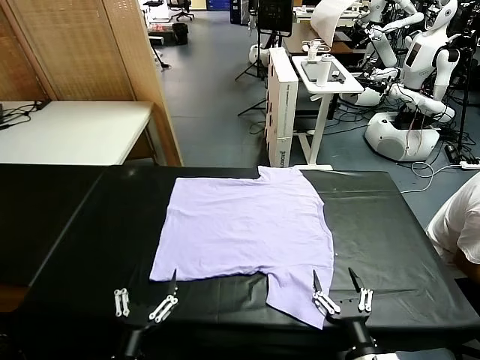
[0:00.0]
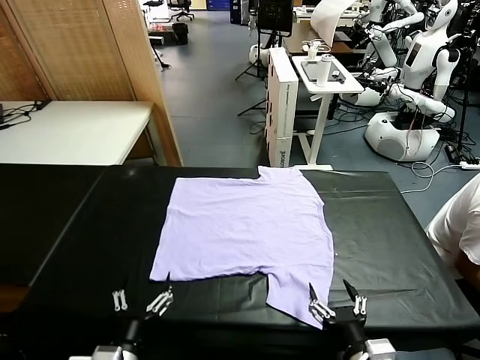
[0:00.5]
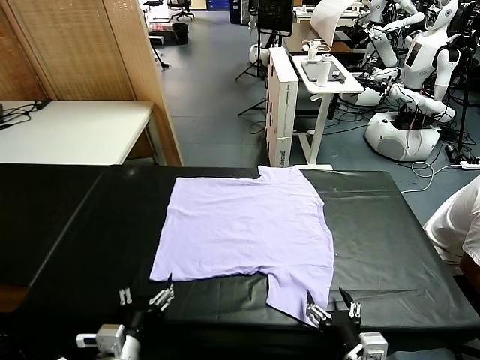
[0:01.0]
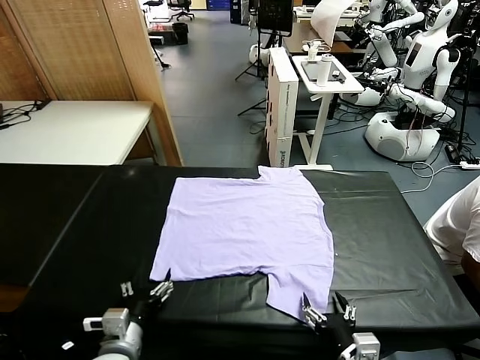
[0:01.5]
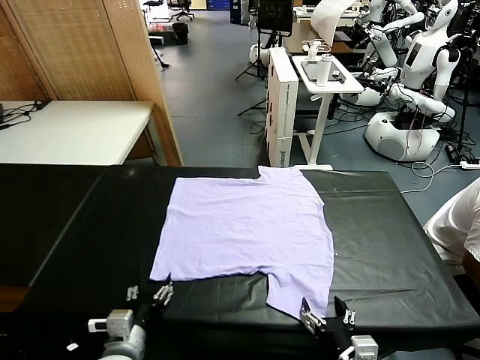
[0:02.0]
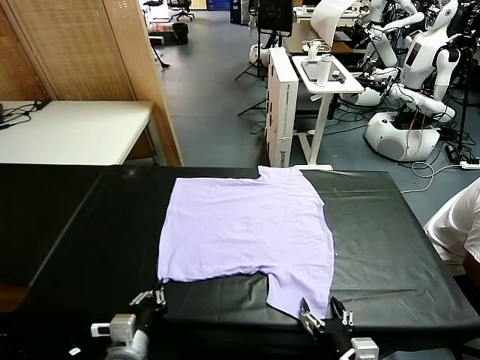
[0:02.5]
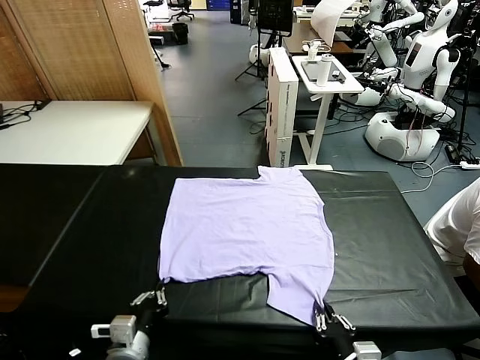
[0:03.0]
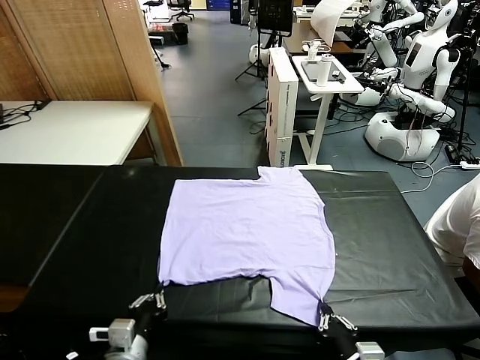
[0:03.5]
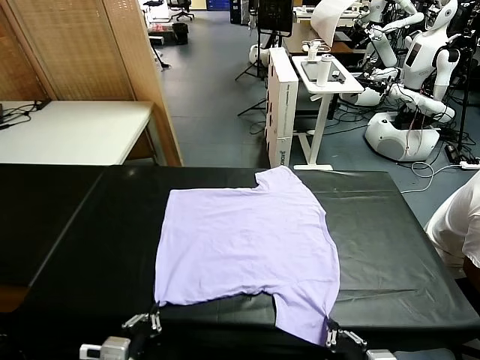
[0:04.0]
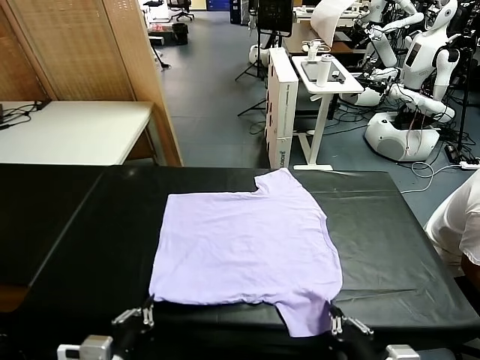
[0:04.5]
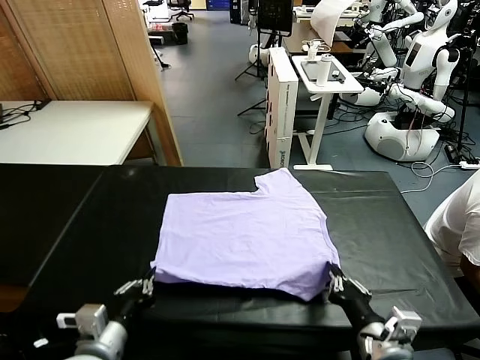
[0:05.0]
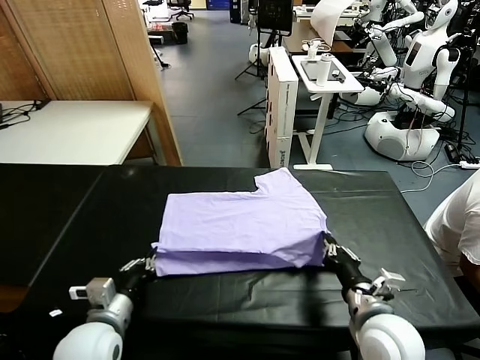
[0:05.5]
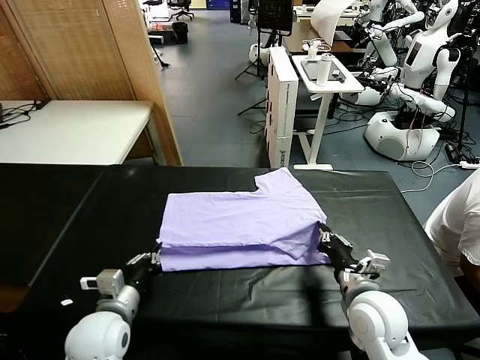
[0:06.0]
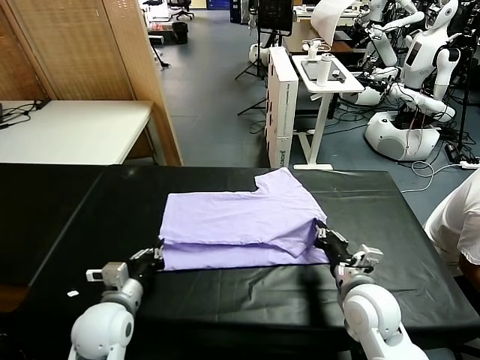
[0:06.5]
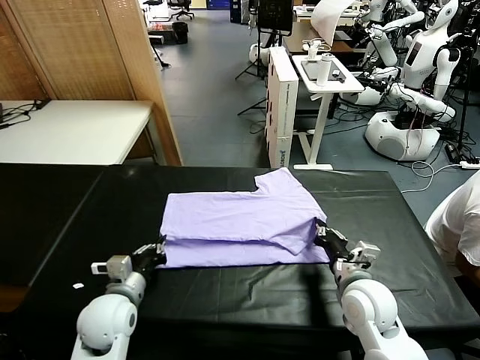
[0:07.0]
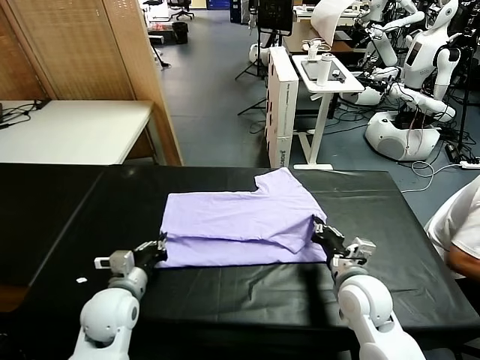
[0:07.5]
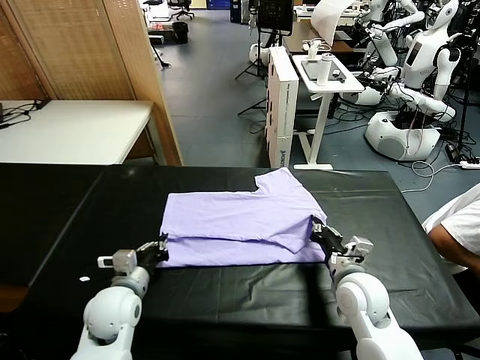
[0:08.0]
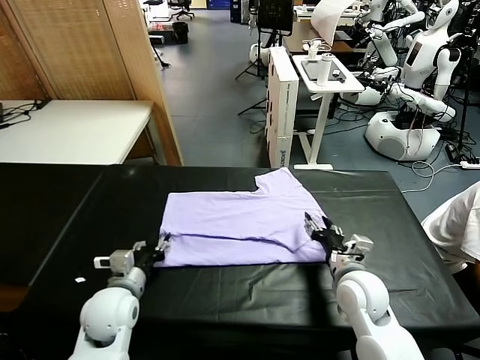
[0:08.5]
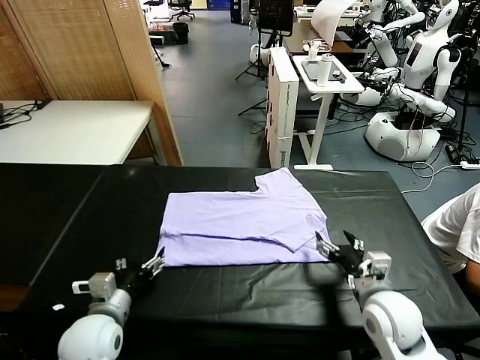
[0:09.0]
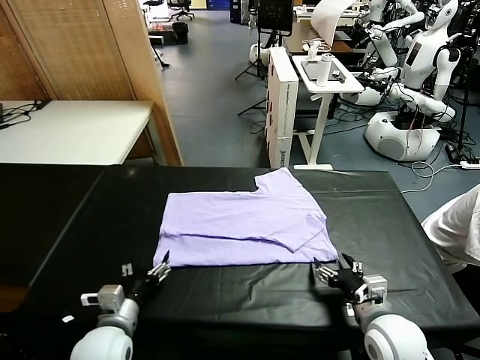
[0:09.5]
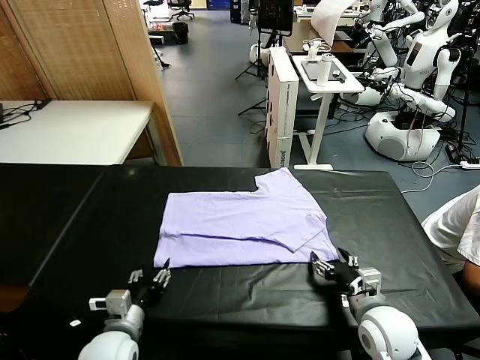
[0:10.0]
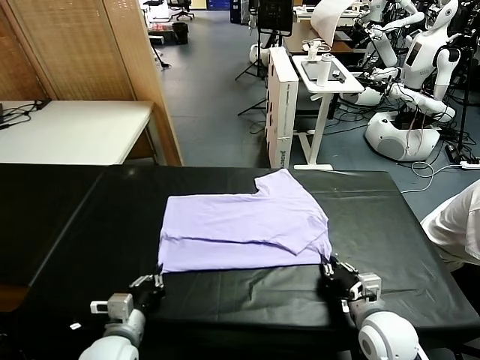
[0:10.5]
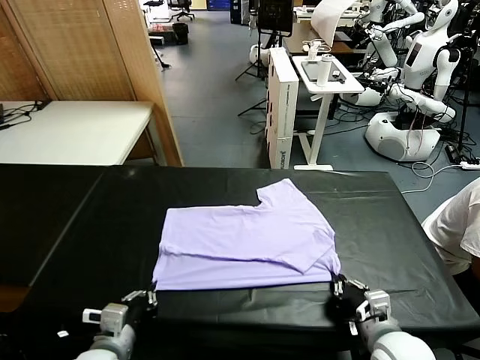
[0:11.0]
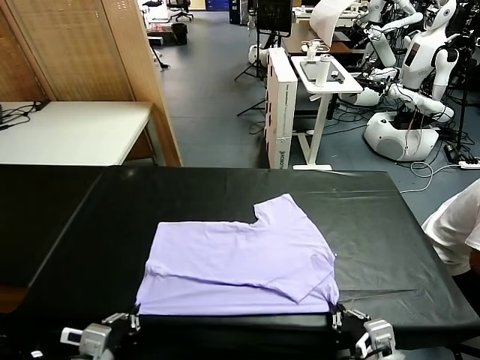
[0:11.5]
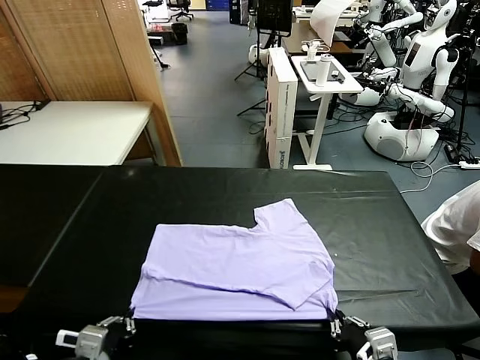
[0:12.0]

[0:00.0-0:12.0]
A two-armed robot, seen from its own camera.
Task of the whole recording: fold and organize the clothes.
Step, 0:00.0 to 0:03.0: use both grippers simultaneously to clamp the lower edge of the clothing fabric.
Step, 0:03.5 to 0:08.5: use both grippers to drag the lower edge of the fabric forward and fold it over the upper edge.
0:02.0 to 0:04.0: The right gripper shifts roughly 5 cm upward, and closes, while the left gripper goes about 10 cm backward and upward, and closes up.
0:04.0 to 0:06.0: Both grippers travel together forward, about 15 cm.
0:06.0 to 0:08.0: The left gripper moves forward, about 5 cm.
0:08.0 to 0:10.0: Both grippers travel together backward, roughly 5 cm. The left gripper opens its fingers. The right gripper opens and closes again.
0:10.0 to 0:12.0: Both grippers move backward and upward, about 10 cm. The right gripper closes and opens again.

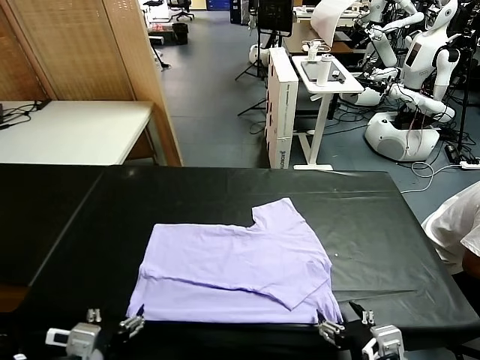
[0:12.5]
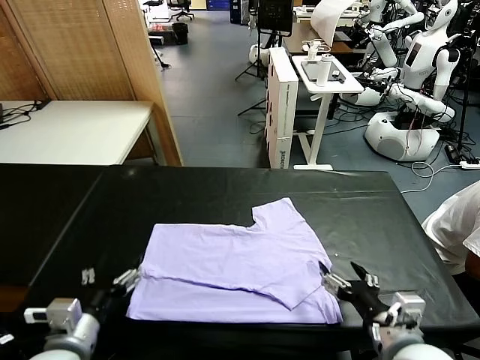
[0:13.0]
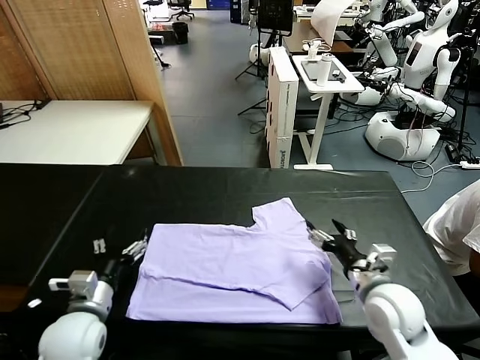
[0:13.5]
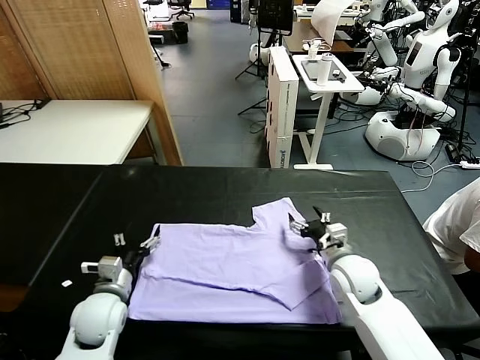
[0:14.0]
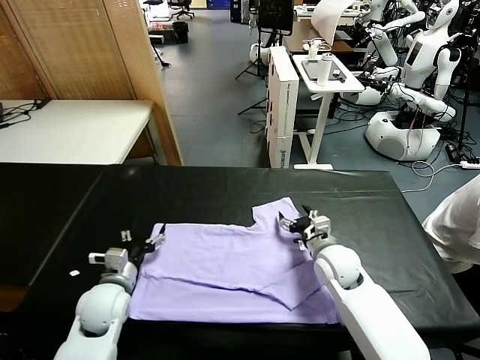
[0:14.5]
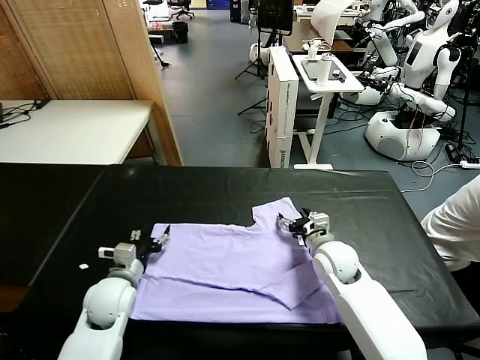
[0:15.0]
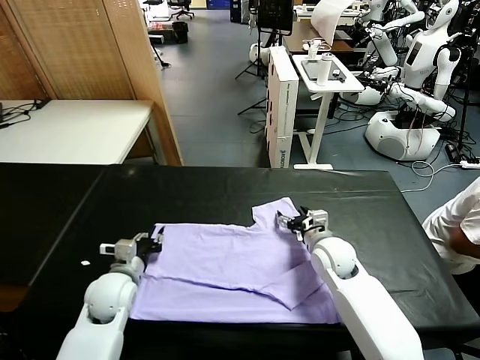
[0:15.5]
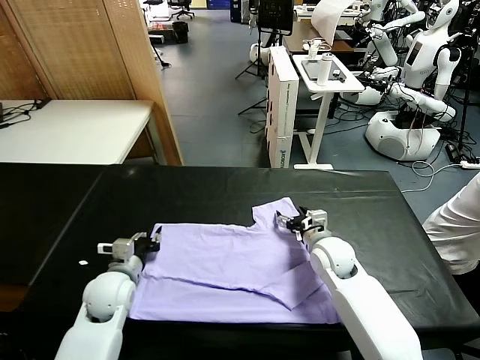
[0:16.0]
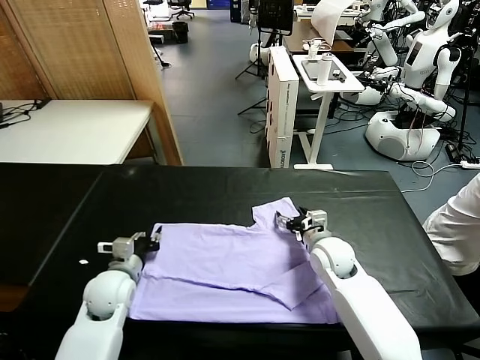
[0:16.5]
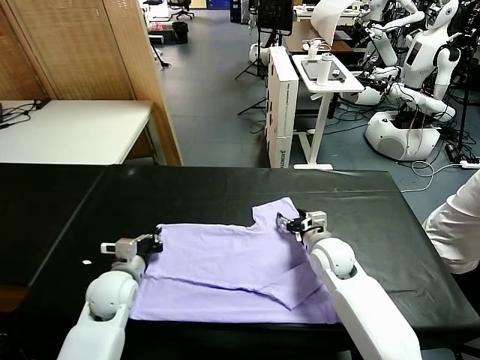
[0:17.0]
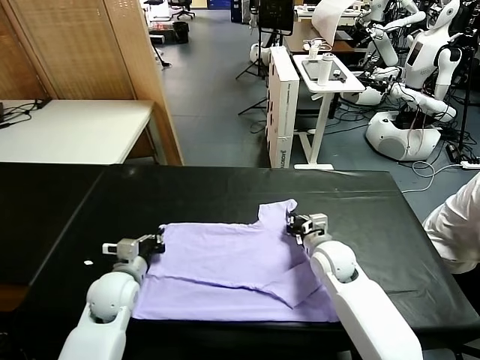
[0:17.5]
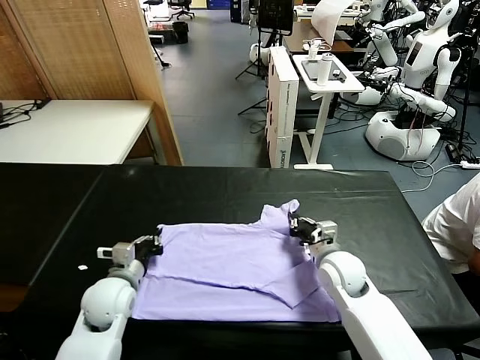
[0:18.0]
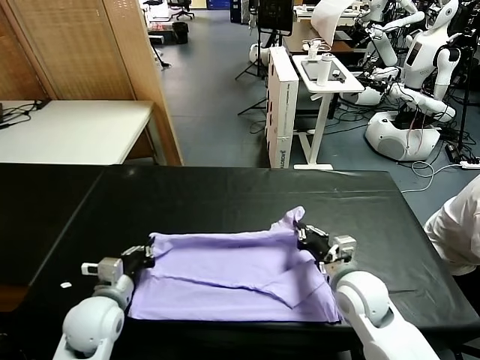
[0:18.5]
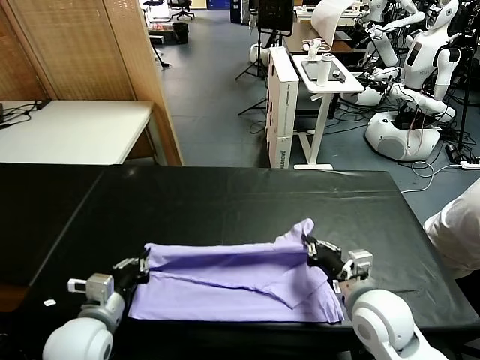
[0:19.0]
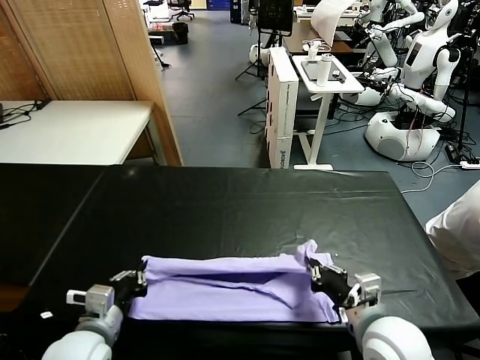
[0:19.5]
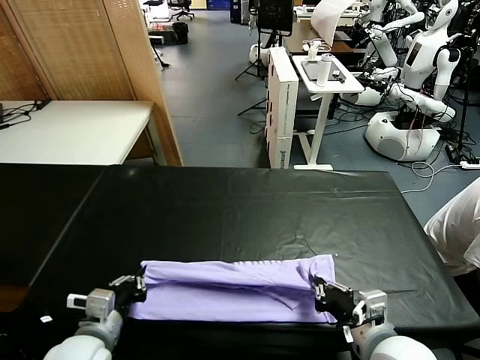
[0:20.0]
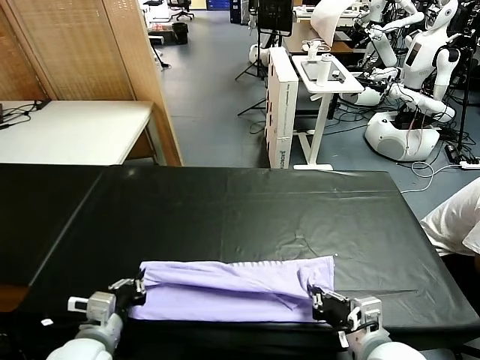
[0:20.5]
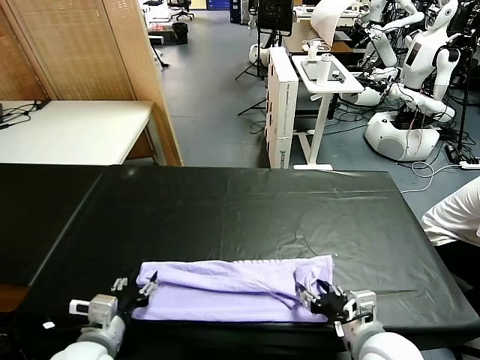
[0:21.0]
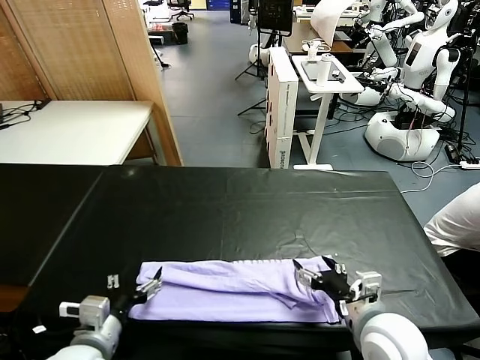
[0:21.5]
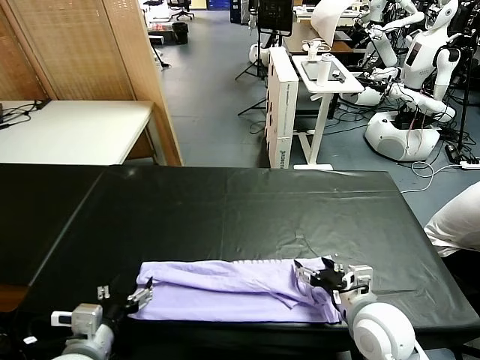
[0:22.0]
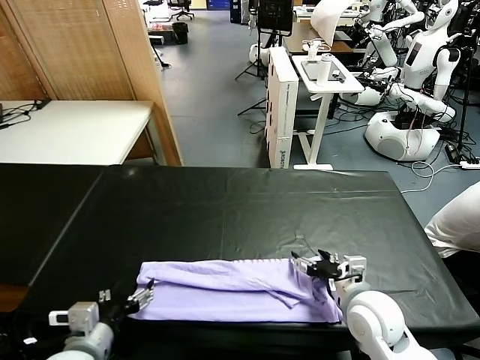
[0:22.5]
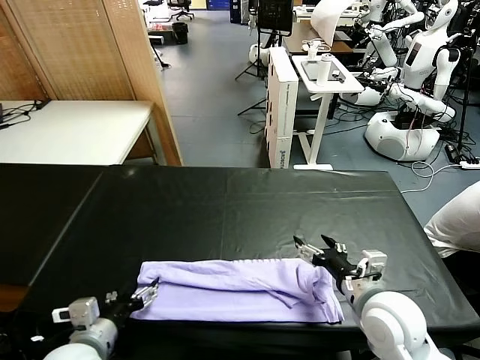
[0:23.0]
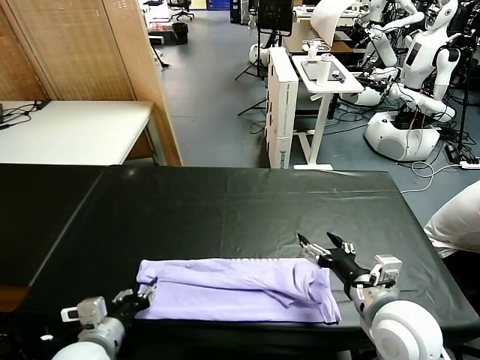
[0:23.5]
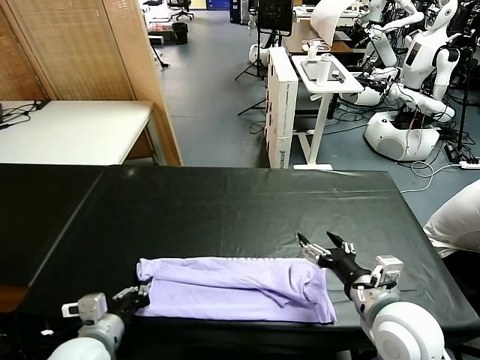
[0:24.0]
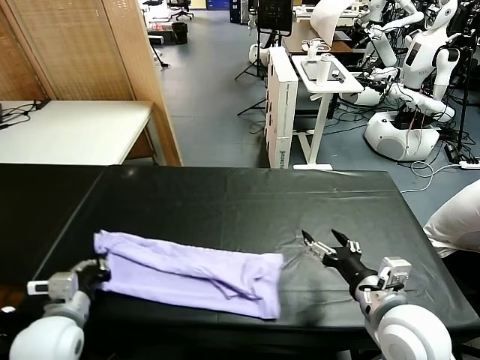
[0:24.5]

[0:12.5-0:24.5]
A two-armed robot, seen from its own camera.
Task of the whole recording: fold and organize the clothes.
Step, 0:13.0 to 0:17.0: use both grippers simultaneously to clamp the upper edge of the clothing fabric.
Step, 0:18.0 to 0:22.5: use both grippers to drag the upper edge of the fabric backward and fold it over the lower edge.
Step, 0:23.0 to 0:24.0: use the left gripper to clamp the left edge of the fabric.
0:12.5 to 0:14.5: The right gripper travels forward by about 25 cm. The left gripper is displaced forward and downward by some 20 cm.
0:14.5 to 0:16.5: The left gripper closes.
0:16.5 to 0:18.5: The right gripper moves backward, some 10 cm, and closes; the left gripper is displaced backward by some 10 cm.
0:18.5 to 0:20.5: The right gripper travels backward by about 10 cm; the left gripper travels backward by about 5 cm.
0:20.5 to 0:22.5: The left gripper opens up; the right gripper shifts roughly 10 cm forward, and opens its fingers.
0:22.5 to 0:24.5: The left gripper travels to the left and forward by roughly 5 cm, and closes its fingers. Meanwhile the right gripper heads upward and backward, covering approximately 10 cm.

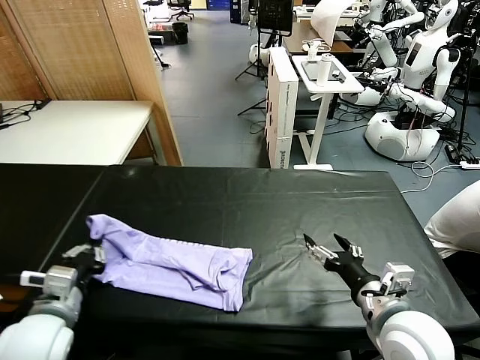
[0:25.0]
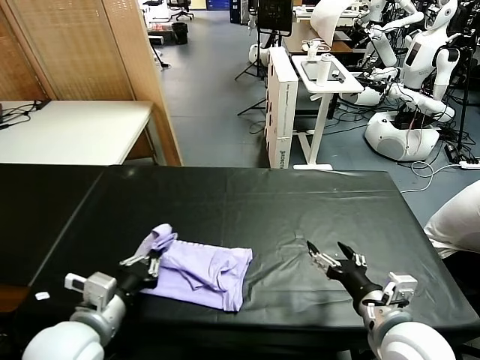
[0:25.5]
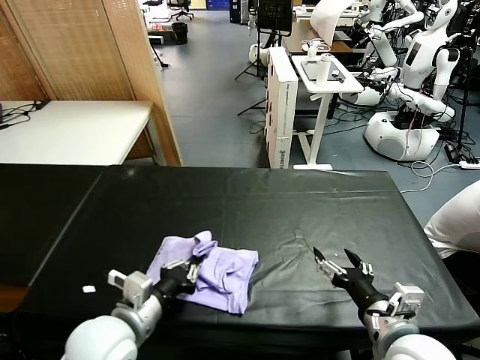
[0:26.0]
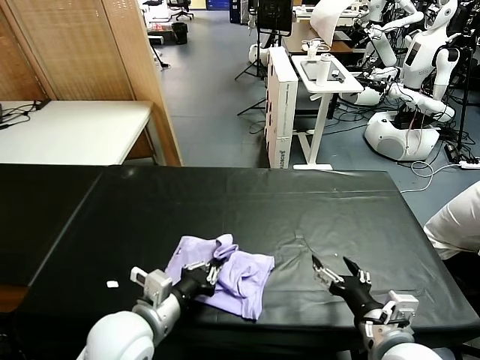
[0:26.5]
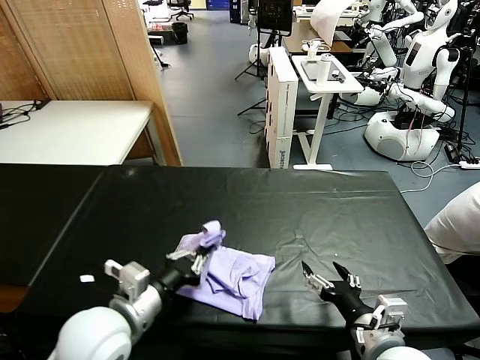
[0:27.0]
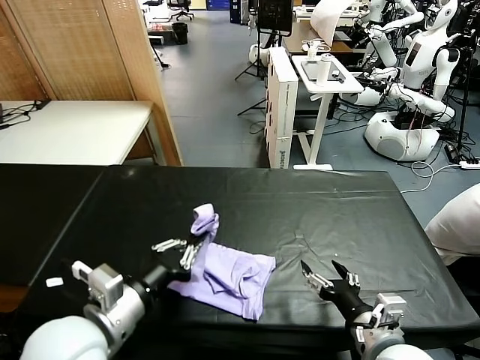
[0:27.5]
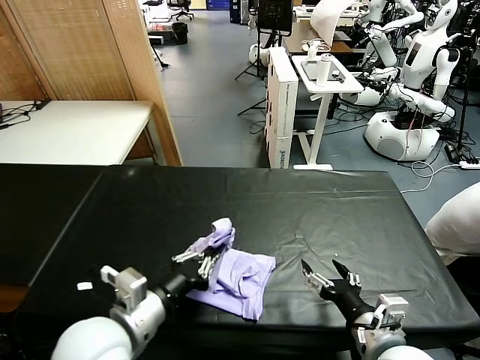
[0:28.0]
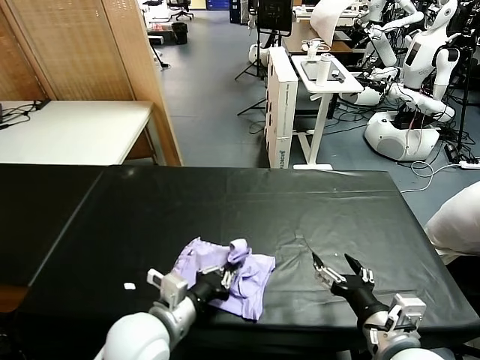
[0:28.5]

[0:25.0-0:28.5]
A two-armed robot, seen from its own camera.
Task of the whole recording: fold and organize the clothes.
0:25.0 to 0:27.0: The right gripper shifts by roughly 5 cm. The left gripper heads to the right, covering approximately 10 cm.
0:27.0 to 0:28.5: The left gripper moves to the right, approximately 5 cm.
